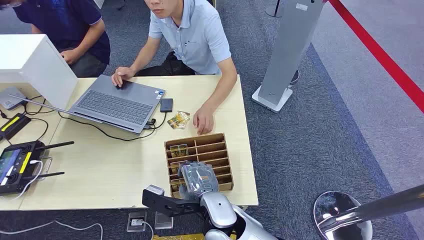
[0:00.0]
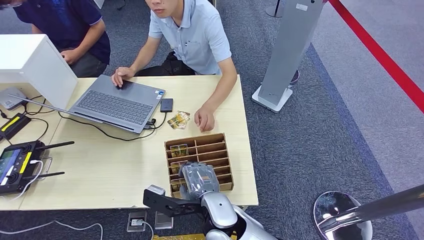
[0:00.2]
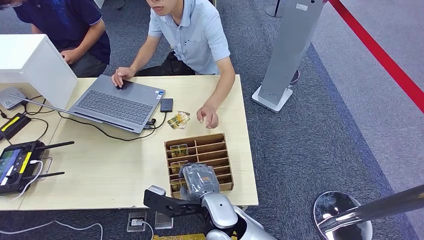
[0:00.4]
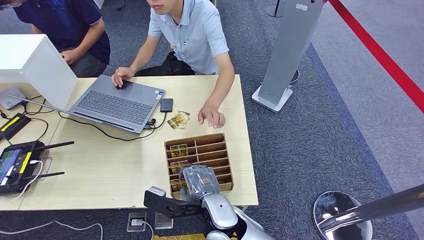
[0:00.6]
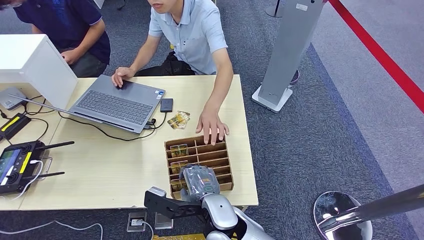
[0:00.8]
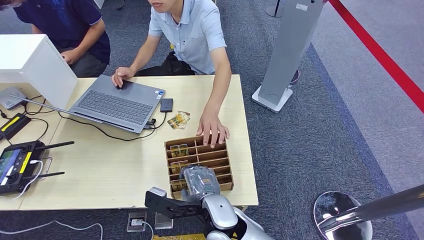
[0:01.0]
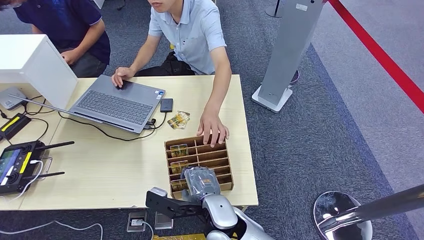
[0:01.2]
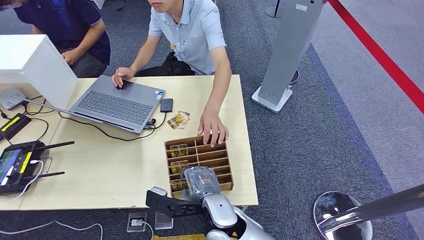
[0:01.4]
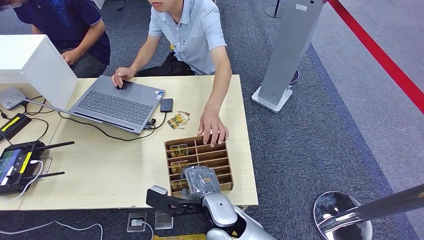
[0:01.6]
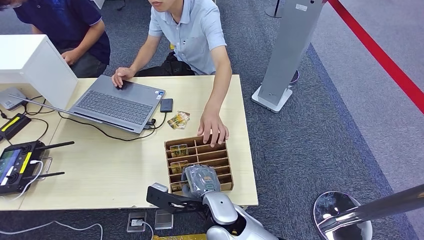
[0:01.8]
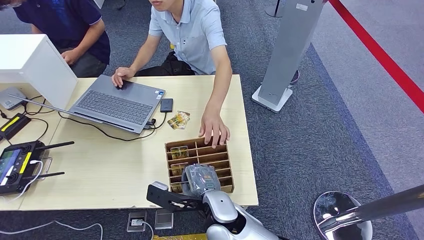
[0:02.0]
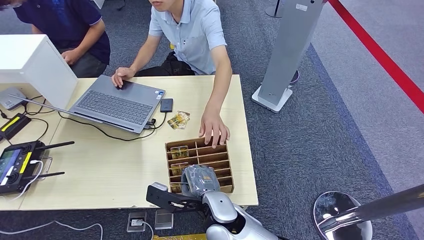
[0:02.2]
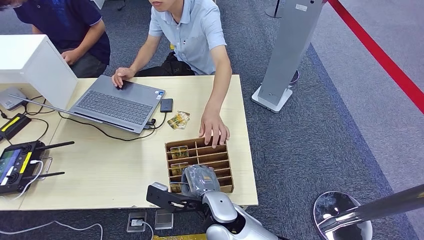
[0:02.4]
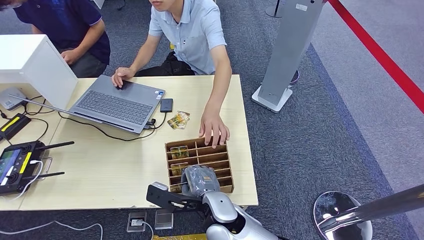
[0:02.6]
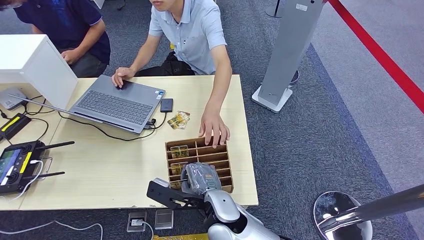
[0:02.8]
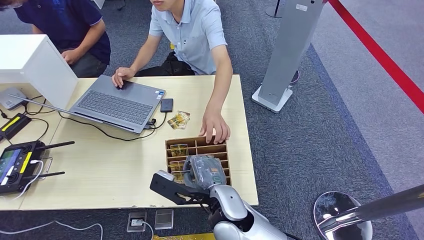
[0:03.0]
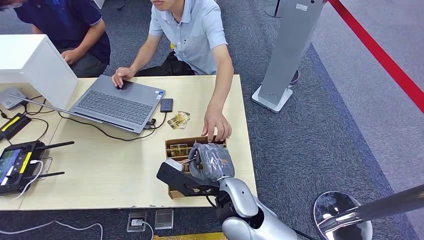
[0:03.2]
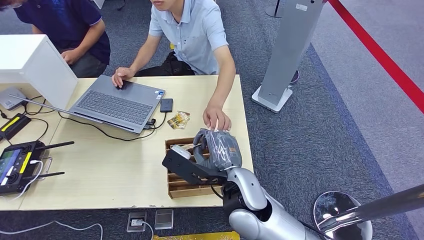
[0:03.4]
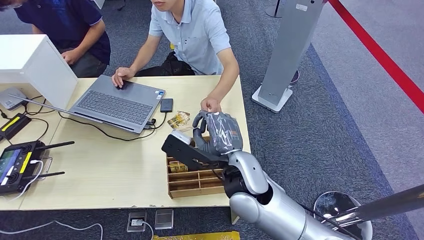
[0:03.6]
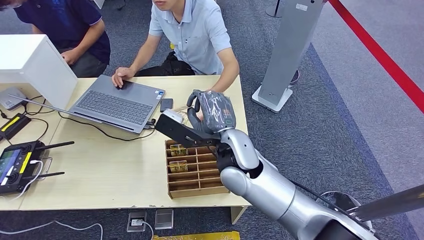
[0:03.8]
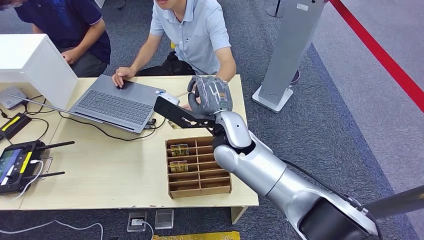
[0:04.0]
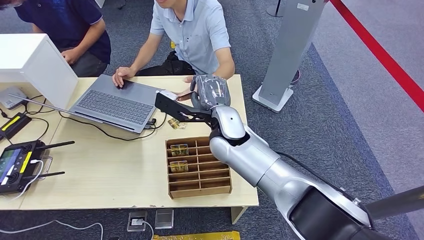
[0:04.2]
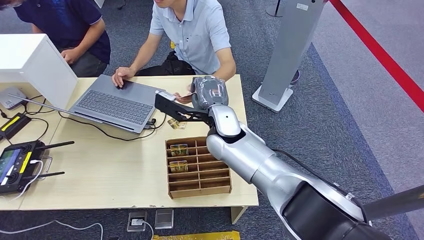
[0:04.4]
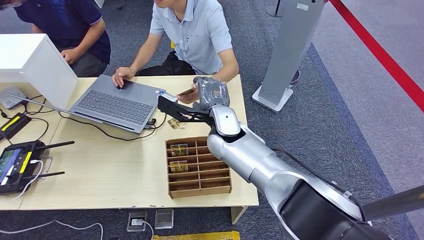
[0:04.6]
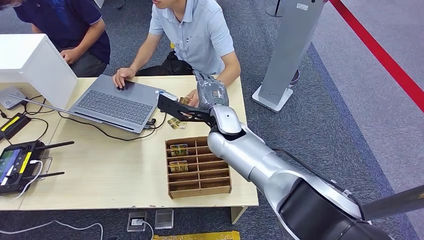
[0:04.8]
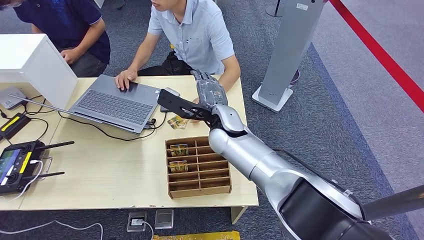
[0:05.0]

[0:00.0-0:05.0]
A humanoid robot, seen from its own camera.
Step, 0:00.0 to 0:03.4: Pick up the room card from the card holder.
Step, 0:03.8 to 0:05.0: Hand the room card to the target.
0:01.6 to 0:03.4: The right hand goes approximately 10 cm upward.
0:03.4 to 0:05.0: The right hand travels forward by about 15 cm.
